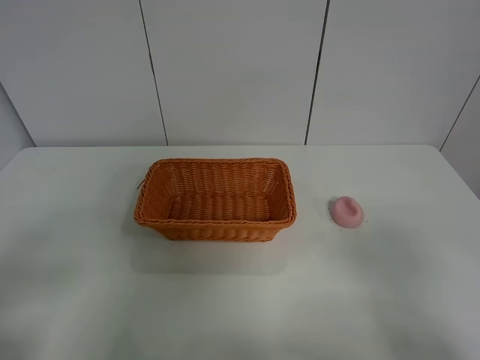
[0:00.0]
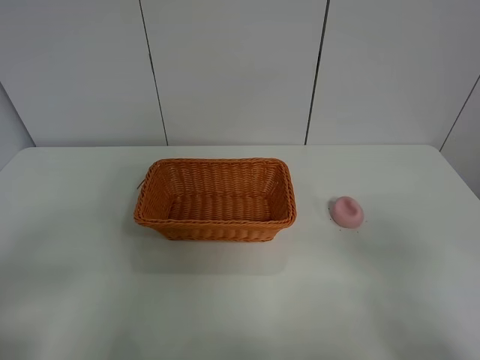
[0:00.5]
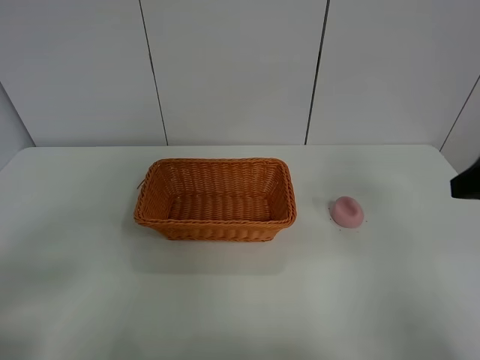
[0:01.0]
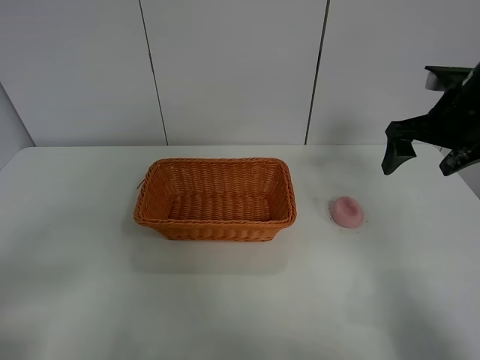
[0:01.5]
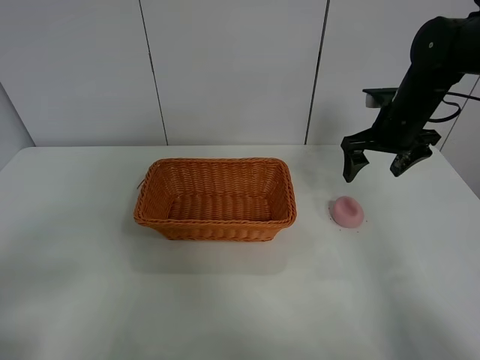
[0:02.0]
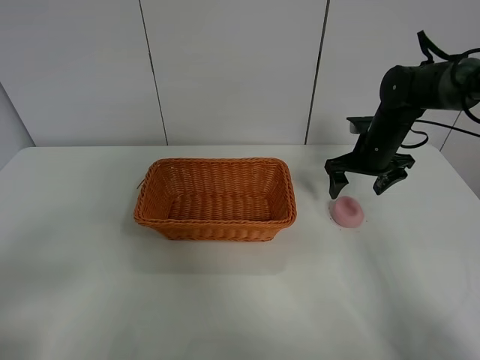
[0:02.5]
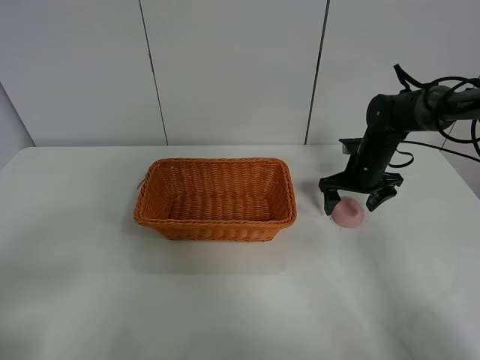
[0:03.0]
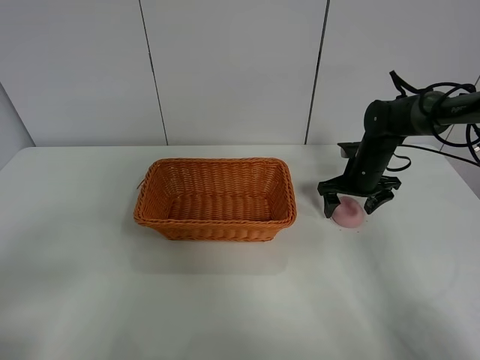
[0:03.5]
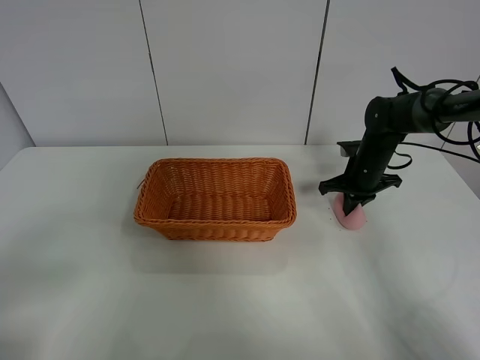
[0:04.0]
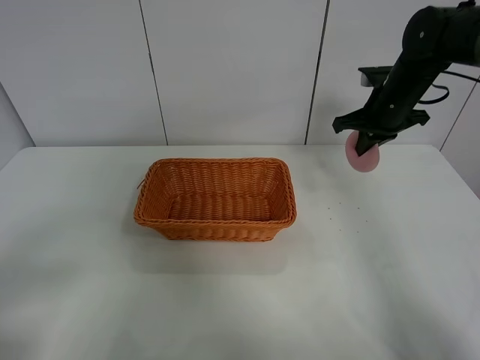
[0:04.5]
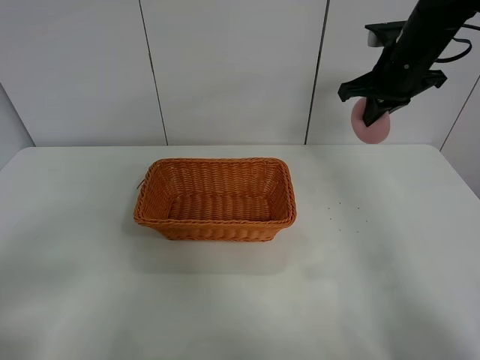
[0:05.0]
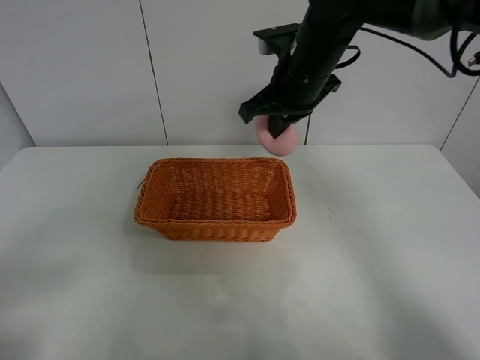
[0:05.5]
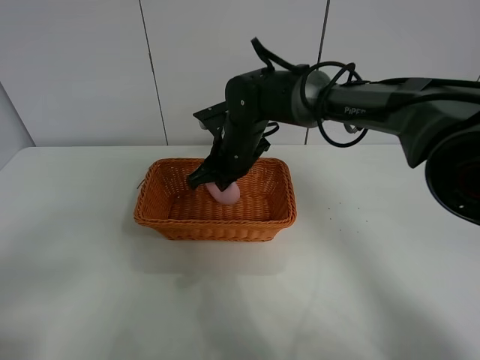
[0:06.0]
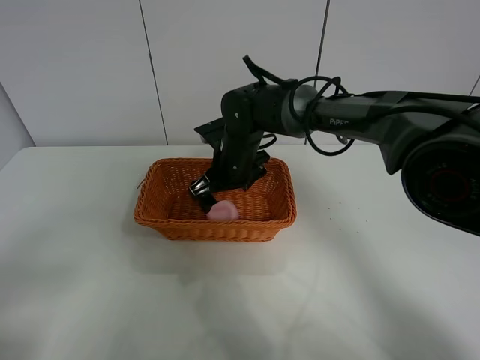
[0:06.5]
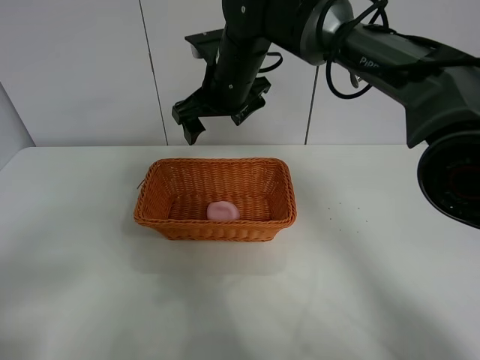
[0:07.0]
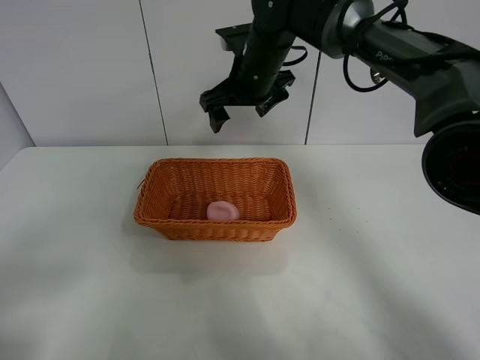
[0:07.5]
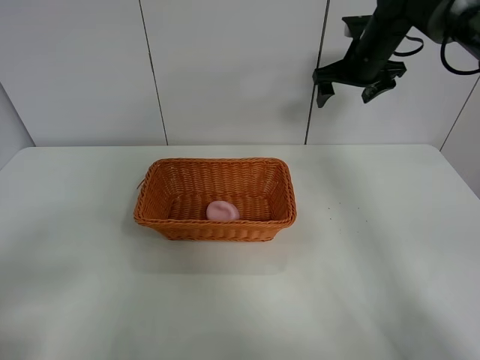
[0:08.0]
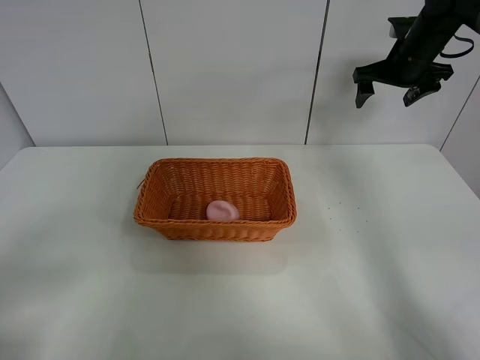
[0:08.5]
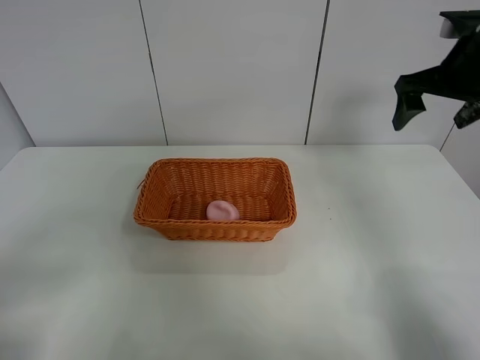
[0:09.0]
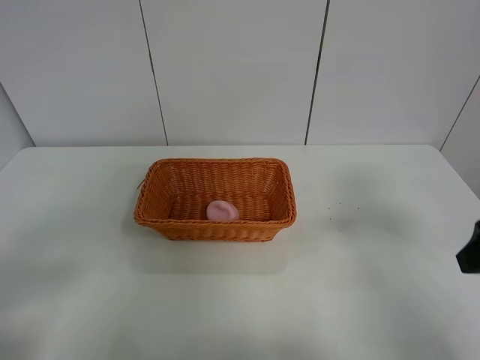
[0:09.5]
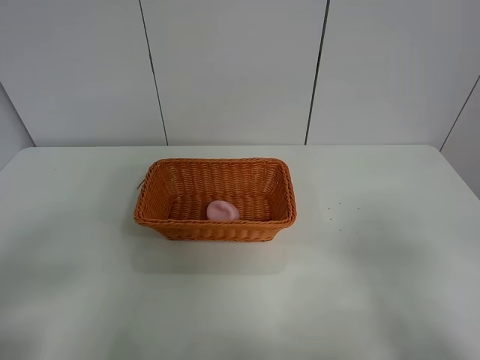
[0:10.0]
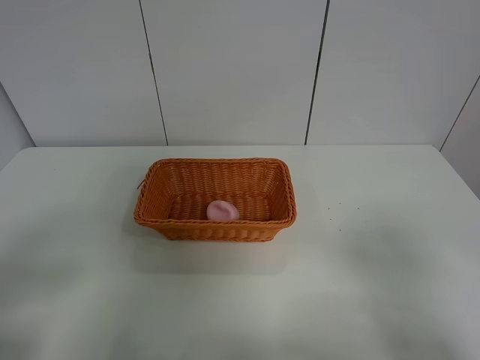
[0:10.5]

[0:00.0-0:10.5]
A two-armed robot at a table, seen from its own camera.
Step, 0:00.0 to 0:04.0: Grasp the peach with right gripper.
Step, 0:04.5 to 0:07.0: Place the peach in the basket with right gripper.
0:00.0 to 0:02.0: The right gripper moves forward, roughly 40 cm.
0:02.0 to 0:04.0: The right gripper goes some 10 cm downward, and closes up.
0:04.0 to 0:06.5: The right gripper shifts about 25 cm to the left, and opens up.
0:06.5 to 0:08.5: The right gripper shifts some 30 cm to the right and upward.
0:08.5 to 0:10.5: The right gripper travels backward by approximately 50 cm.

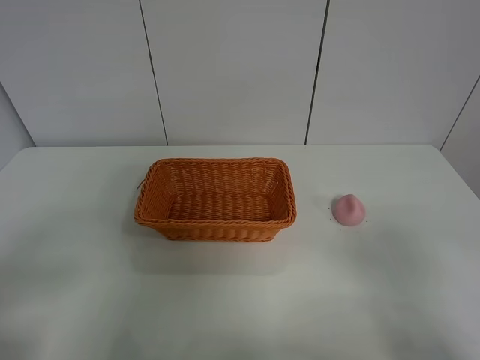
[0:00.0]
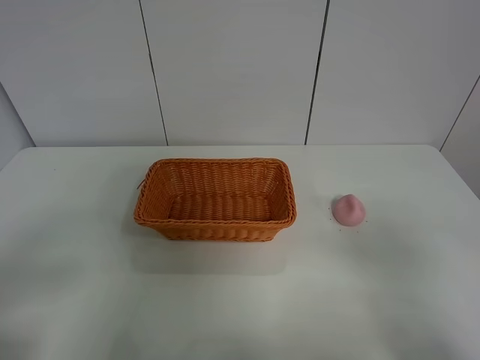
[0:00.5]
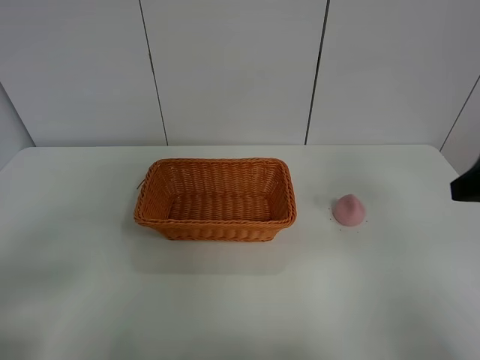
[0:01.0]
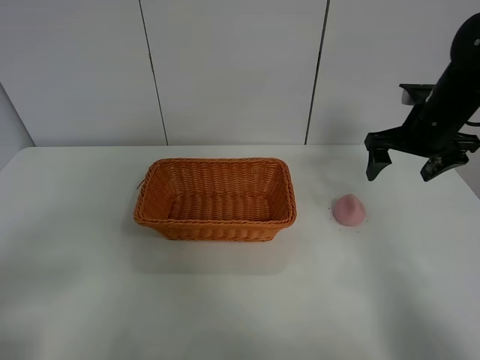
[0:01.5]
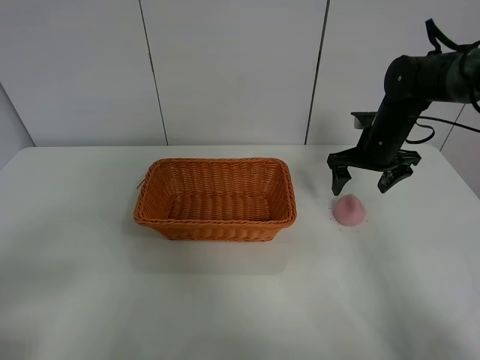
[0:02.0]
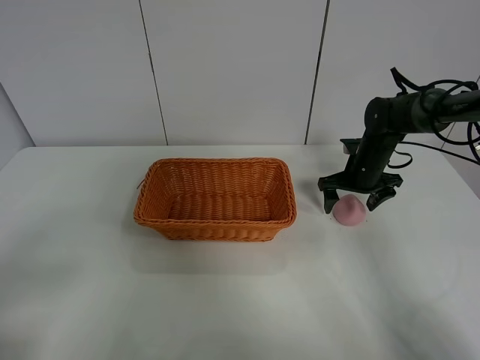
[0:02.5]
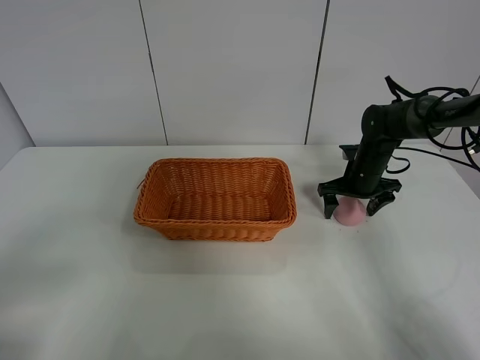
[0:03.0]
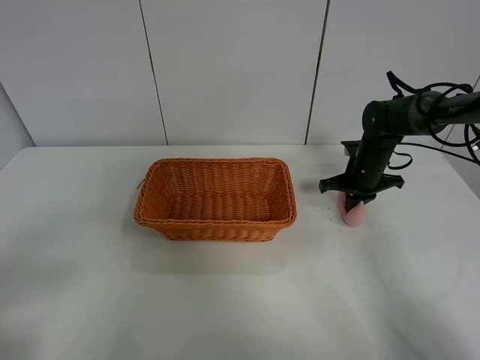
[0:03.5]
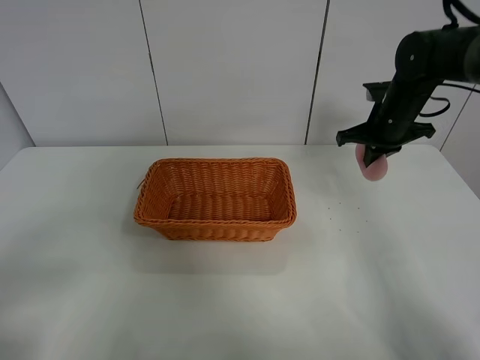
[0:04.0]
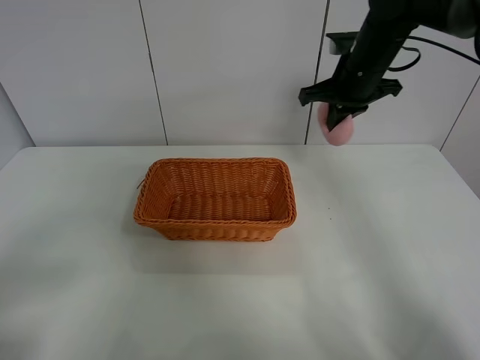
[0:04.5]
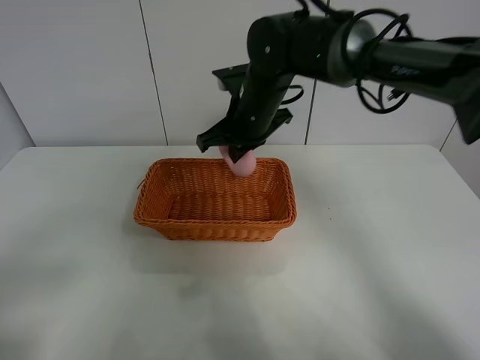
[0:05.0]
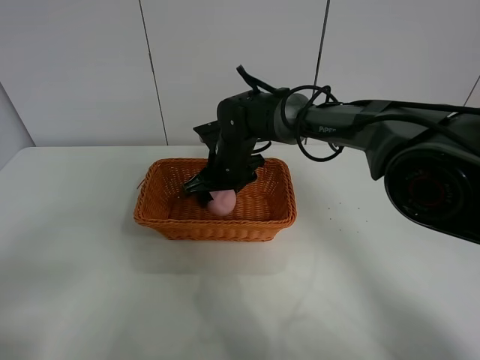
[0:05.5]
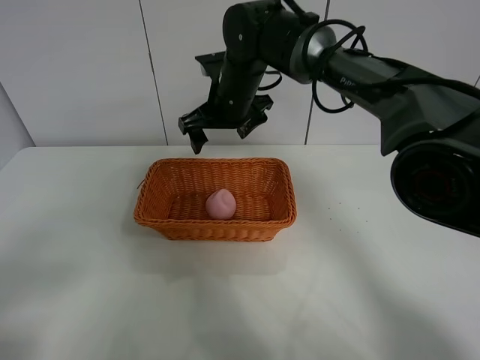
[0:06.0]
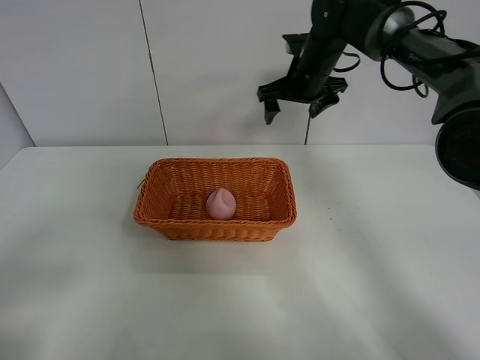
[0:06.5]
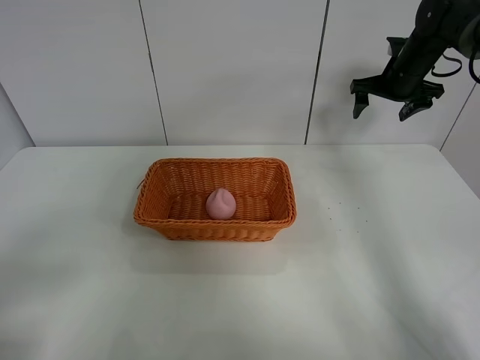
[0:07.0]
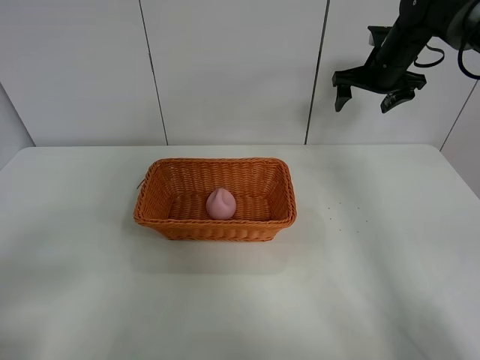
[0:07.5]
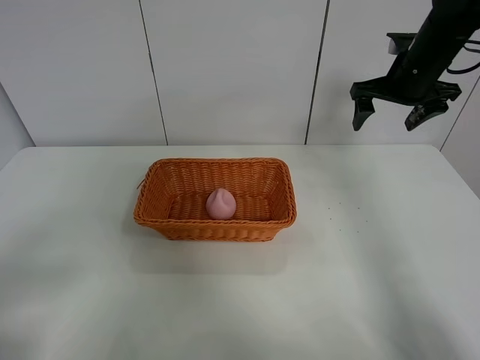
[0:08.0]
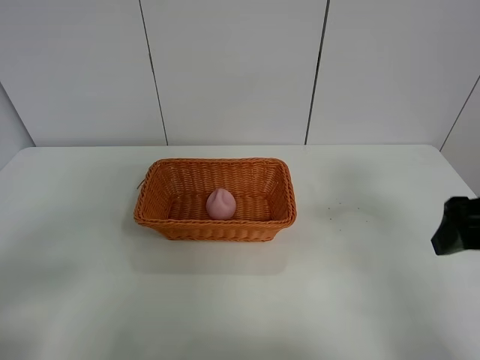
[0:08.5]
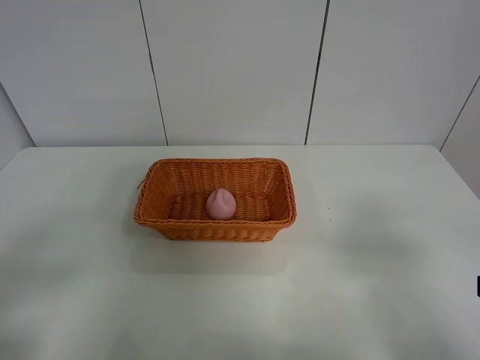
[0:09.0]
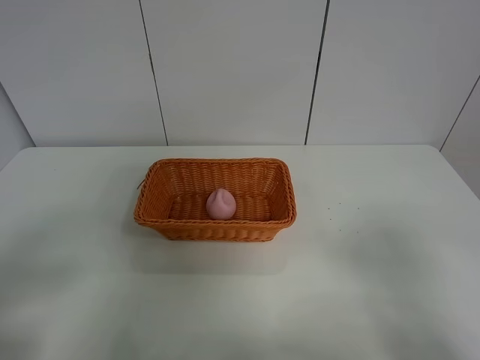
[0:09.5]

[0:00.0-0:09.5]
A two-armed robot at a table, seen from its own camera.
Step, 0:00.0 to 0:03.0: Grasp the peach with right gripper.
Step, 0:03.5 to 0:06.0: Place the peach in the basket with right gripper.
0:00.0 to 0:02.0: The right gripper is displaced forward by approximately 40 cm.
0:02.0 to 0:04.0: The right gripper heads upward, covering some 5 cm, and closes up.
0:04.0 to 0:05.5: The right gripper moves to the left, approximately 25 cm, and opens its fingers.
0:05.5 to 0:07.5: The right gripper shifts about 30 cm to the right and upward.
0:07.5 to 0:09.5: The right gripper moves backward, about 50 cm.
